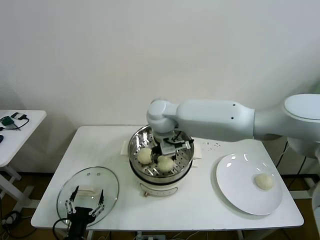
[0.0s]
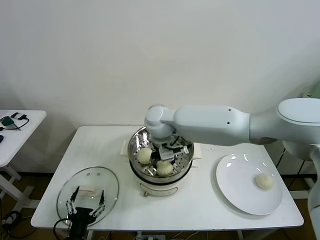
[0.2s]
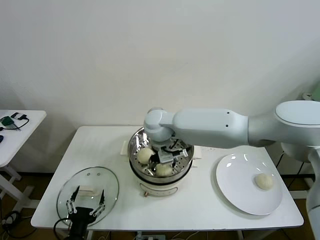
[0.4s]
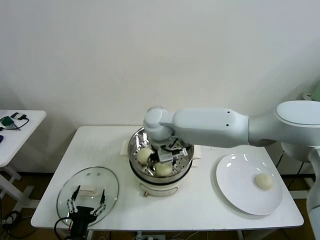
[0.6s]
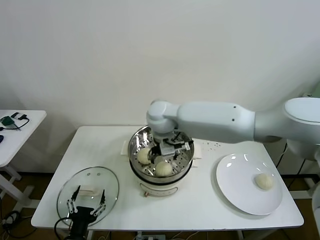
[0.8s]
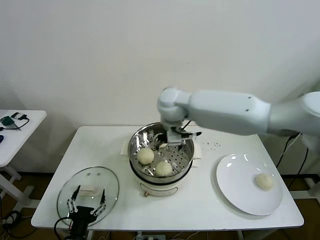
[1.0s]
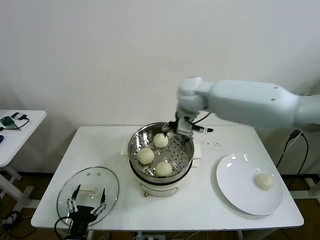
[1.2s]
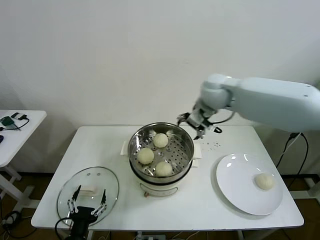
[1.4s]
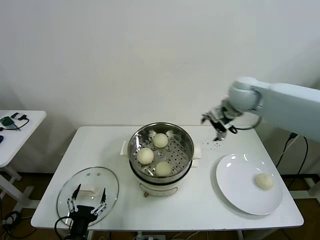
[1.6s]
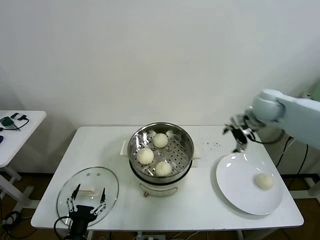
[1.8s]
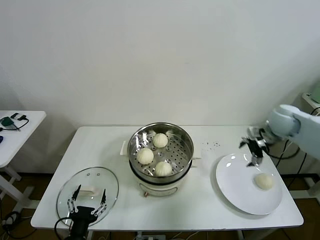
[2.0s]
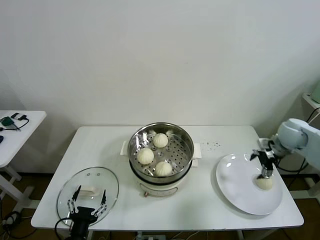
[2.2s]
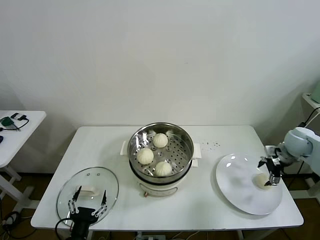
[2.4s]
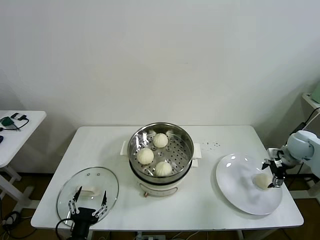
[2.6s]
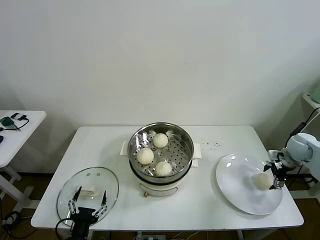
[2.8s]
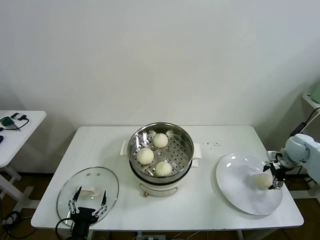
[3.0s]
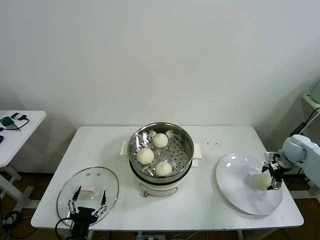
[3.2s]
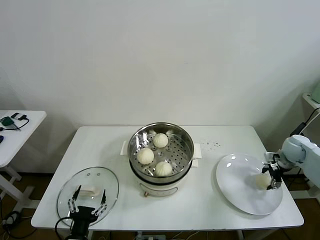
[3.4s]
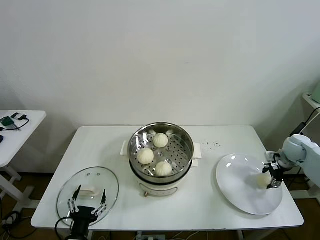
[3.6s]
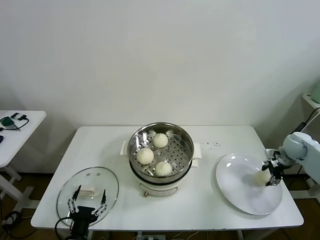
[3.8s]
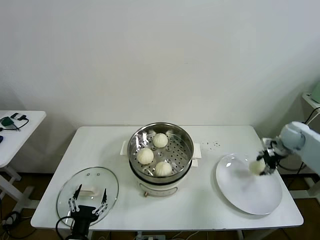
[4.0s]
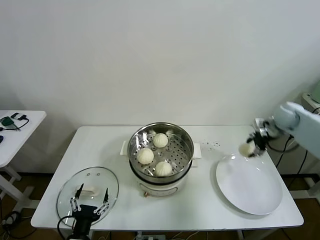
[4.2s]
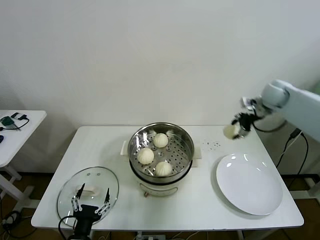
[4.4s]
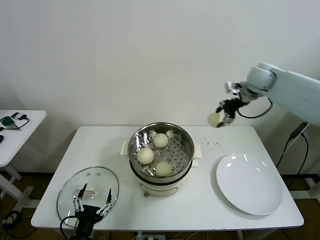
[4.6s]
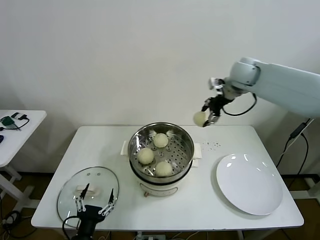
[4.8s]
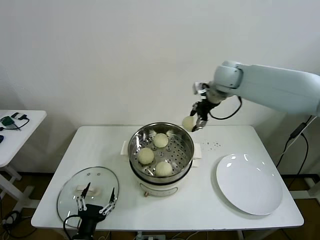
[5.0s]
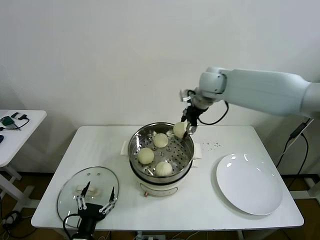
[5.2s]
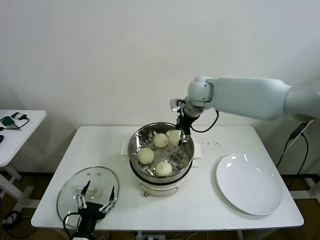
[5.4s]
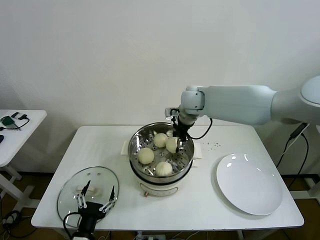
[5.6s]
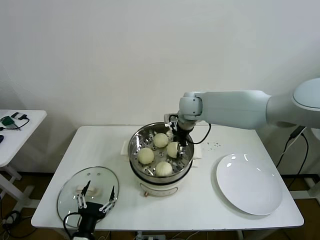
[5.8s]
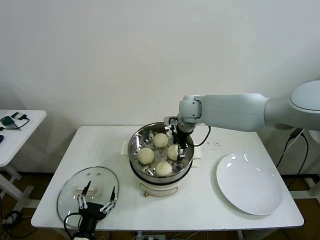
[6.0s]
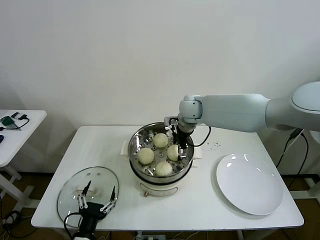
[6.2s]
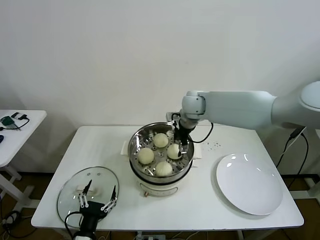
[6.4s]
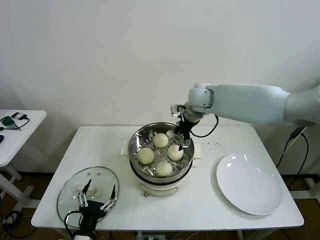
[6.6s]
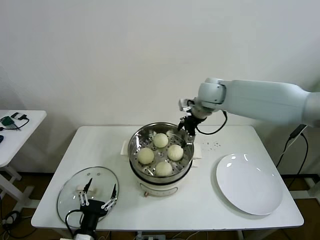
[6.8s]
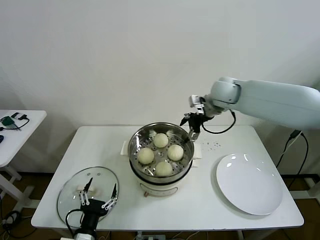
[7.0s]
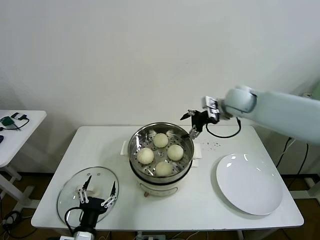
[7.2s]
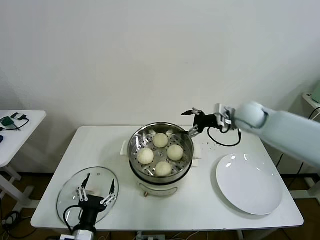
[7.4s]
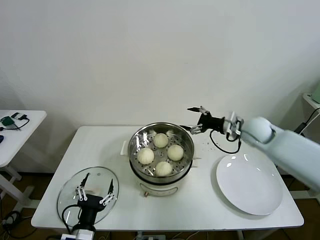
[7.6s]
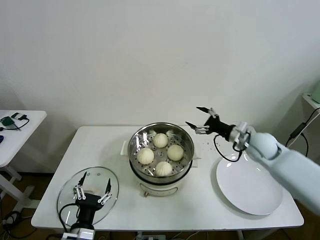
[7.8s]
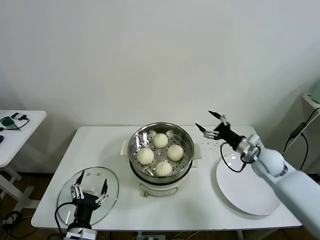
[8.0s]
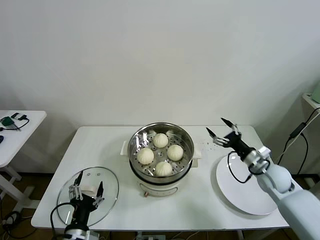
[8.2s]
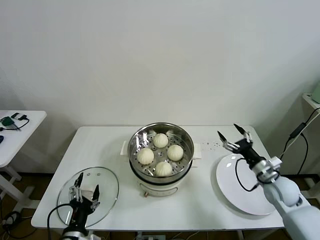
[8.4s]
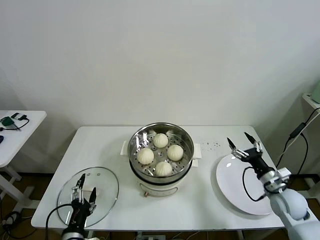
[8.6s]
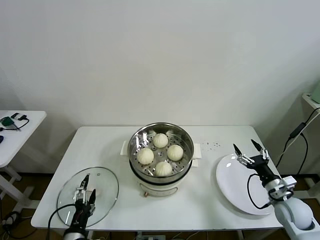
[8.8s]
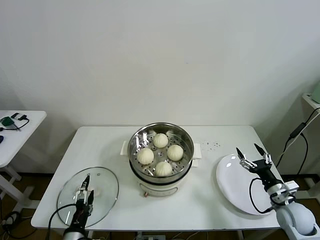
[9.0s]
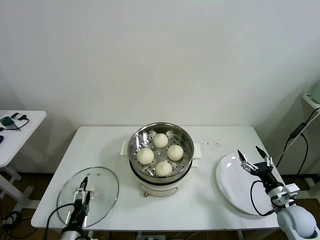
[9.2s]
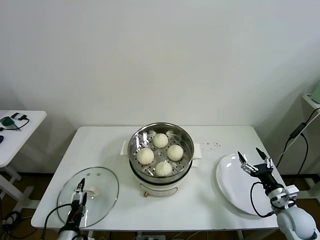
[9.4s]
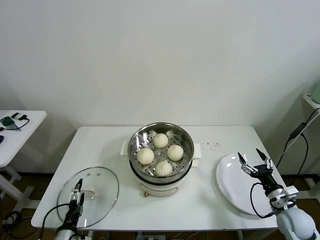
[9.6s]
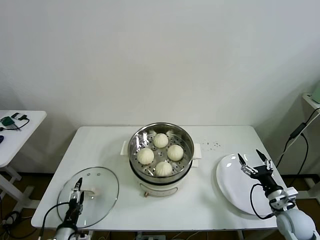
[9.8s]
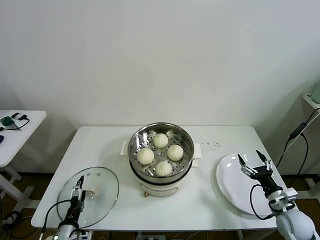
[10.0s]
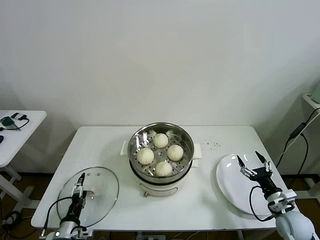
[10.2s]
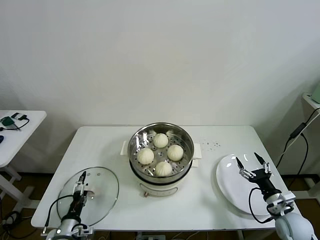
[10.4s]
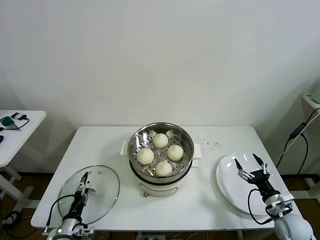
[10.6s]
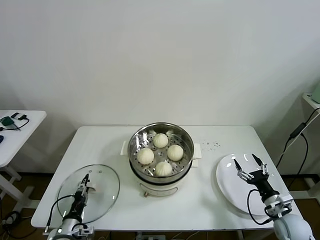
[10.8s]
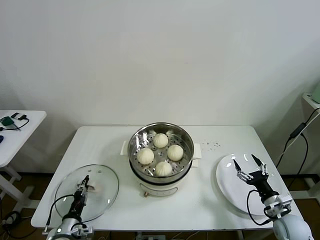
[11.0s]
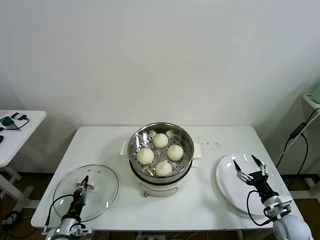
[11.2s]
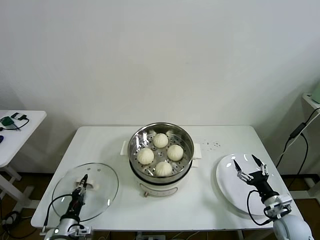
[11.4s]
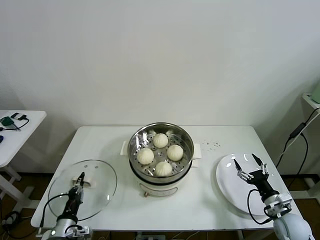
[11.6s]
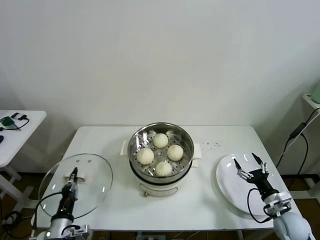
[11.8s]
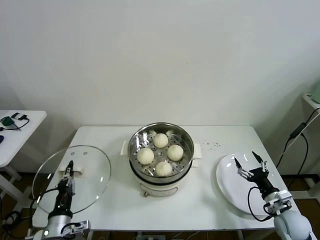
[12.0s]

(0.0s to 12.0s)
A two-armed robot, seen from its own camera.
Task of the whole recording: take steamed baozi put them in steamer then cover it.
Step, 0.6s - 3.6s: Grasp the baozi in the plate with right gripper.
Step, 3.8s - 6.2s: Place the baozi on the steamer with right gripper.
Step, 6.6s - 11.2s: Grasp the pot lid with left gripper.
0.0s - 1.6s: The right gripper goes roughly 30 cm to the right, and opens.
1.6s - 3.0s: The right gripper is displaced to the right and downward by some 30 cm.
3.0s - 4.4s: The right gripper moves upward, to the left and forward, roughly 25 cm, and closes up.
4.4s - 6.0s: The right gripper travels to the left by about 25 cm, and opens up.
6.0s - 7.6s: The right gripper travels to the right by some 20 cm.
7.6s - 9.0s: The right gripper heads backward, downward and to the right, covering some 30 cm.
9.0s - 10.4s: The left gripper moves downward, to the left and forward, about 10 cm.
10.4s - 12.0s: The left gripper goes roughly 10 cm upward, and closes its fingers.

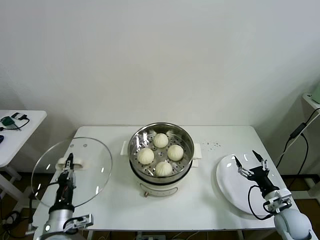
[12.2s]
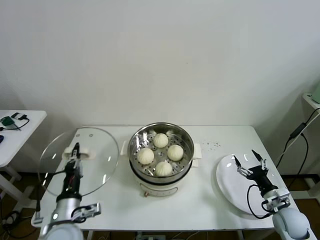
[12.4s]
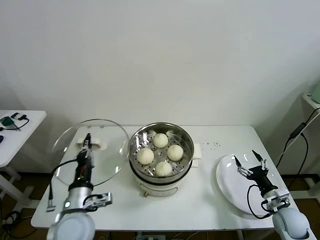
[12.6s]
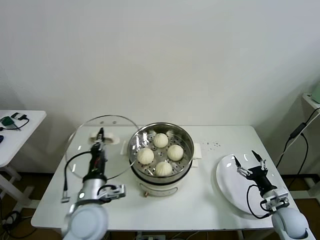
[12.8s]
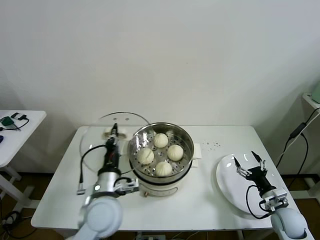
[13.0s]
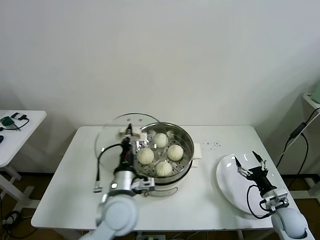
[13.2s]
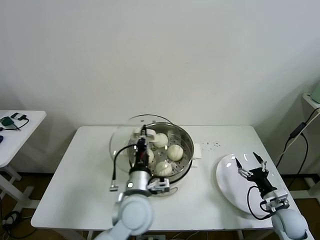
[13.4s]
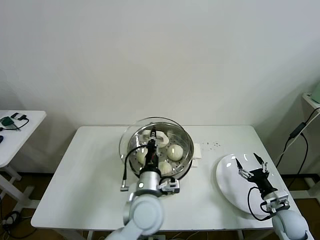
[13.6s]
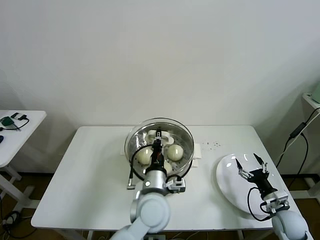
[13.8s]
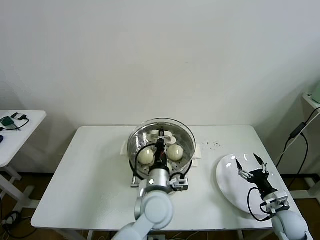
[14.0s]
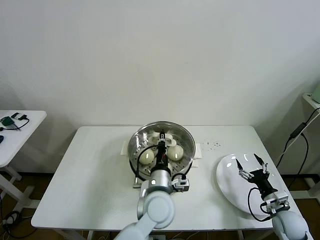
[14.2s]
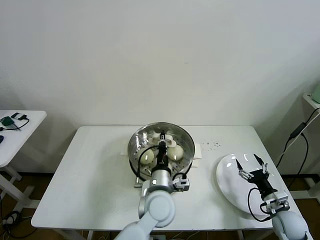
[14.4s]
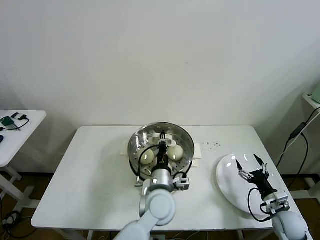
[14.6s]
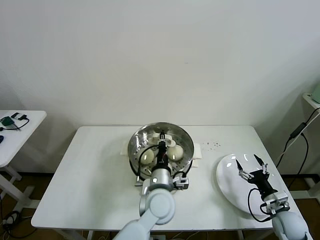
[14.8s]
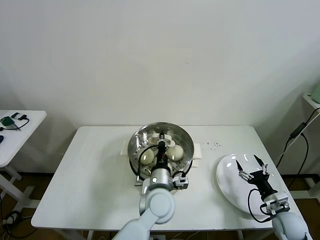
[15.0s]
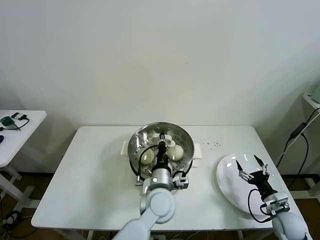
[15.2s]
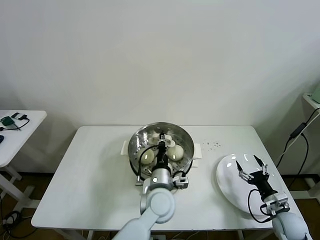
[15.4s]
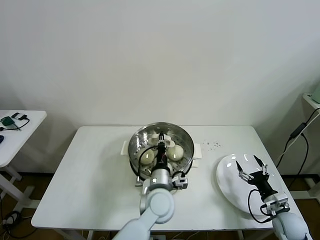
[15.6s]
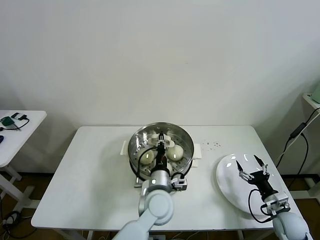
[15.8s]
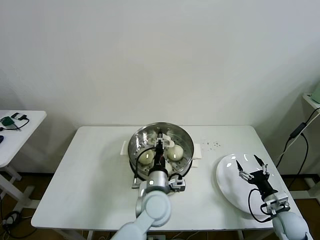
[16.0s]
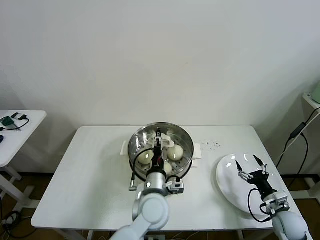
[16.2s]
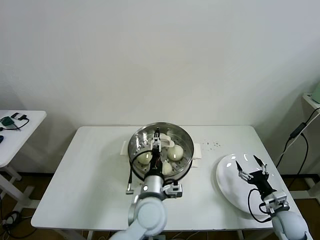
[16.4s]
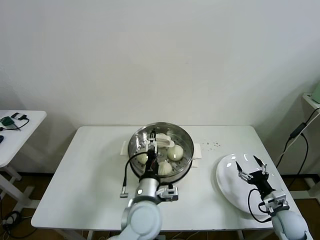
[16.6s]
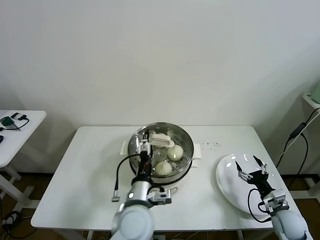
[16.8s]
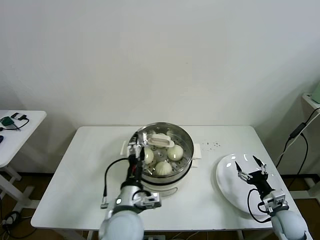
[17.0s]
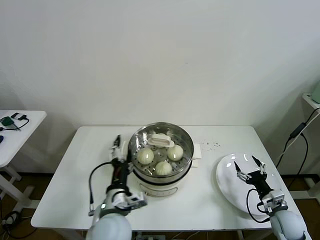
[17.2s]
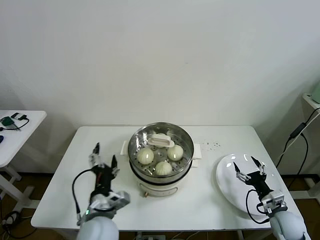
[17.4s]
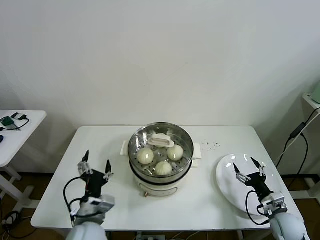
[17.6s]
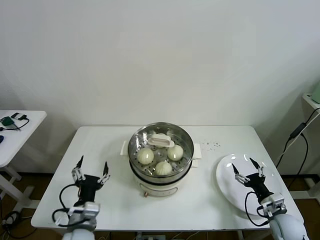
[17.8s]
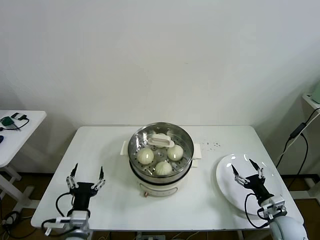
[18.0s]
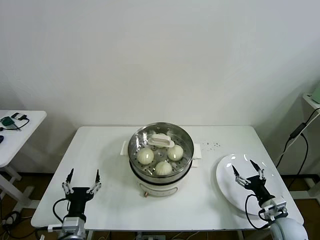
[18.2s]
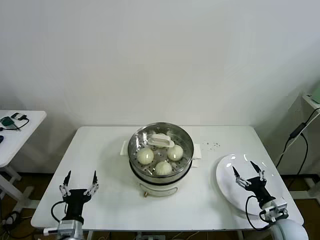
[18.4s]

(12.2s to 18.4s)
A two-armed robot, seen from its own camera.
Task of the whole recording: take steamed baozi put them in steamer then cover it.
Step, 12.2s - 16.2s: Place the pot lid on the steamer with left gripper.
12.2s - 13.8s: The left gripper heads to the right, covering approximately 25 cm.
13.8s - 15.4s: The left gripper shifts by roughly 5 cm.
15.4s - 16.8s: The left gripper shifts some 10 cm backward and to the left, and opens.
16.8s - 18.4s: The left gripper heads to the left and downward, covering about 20 cm.

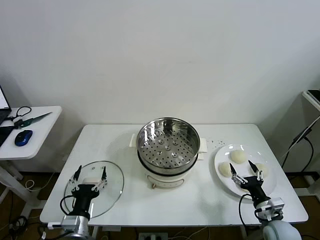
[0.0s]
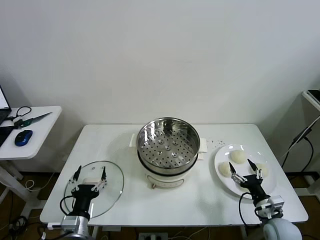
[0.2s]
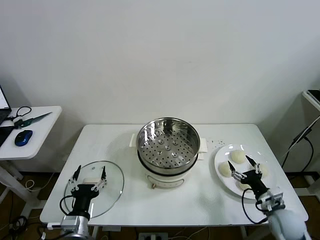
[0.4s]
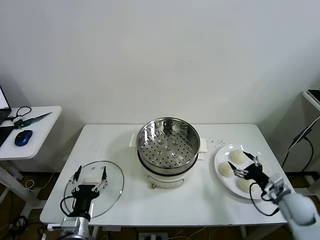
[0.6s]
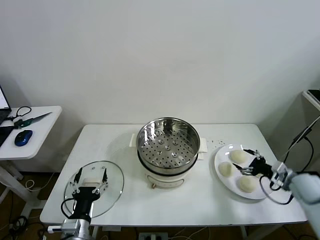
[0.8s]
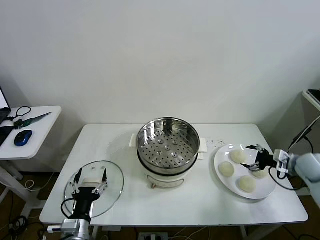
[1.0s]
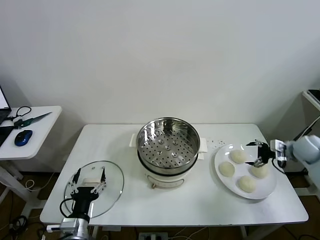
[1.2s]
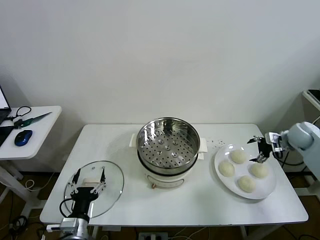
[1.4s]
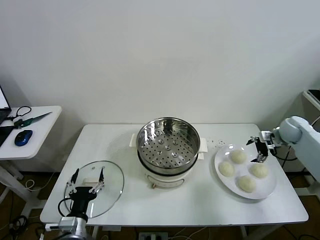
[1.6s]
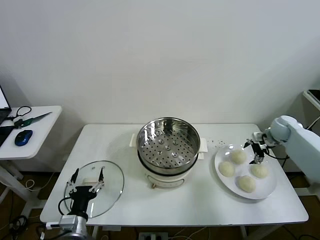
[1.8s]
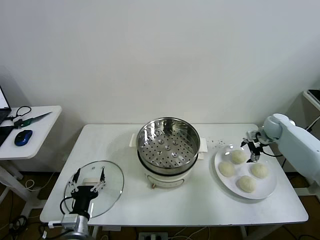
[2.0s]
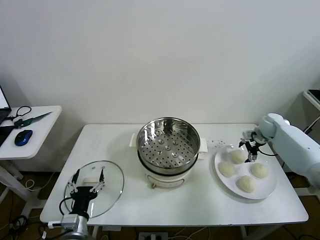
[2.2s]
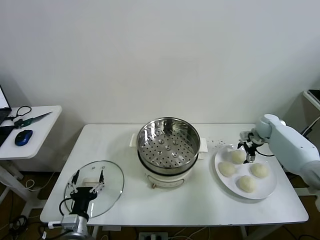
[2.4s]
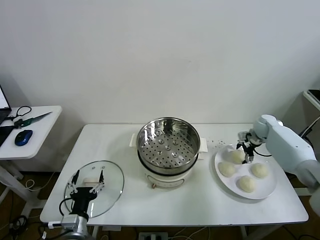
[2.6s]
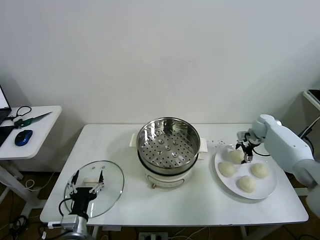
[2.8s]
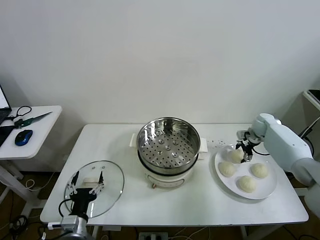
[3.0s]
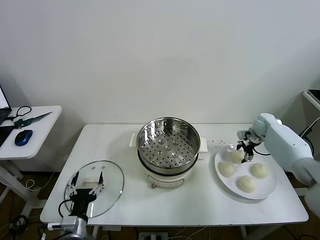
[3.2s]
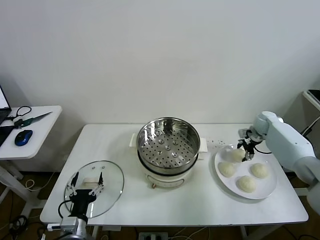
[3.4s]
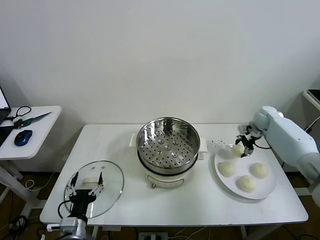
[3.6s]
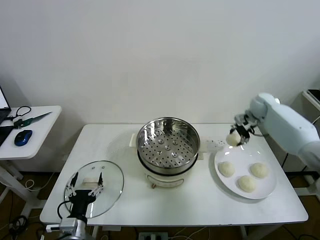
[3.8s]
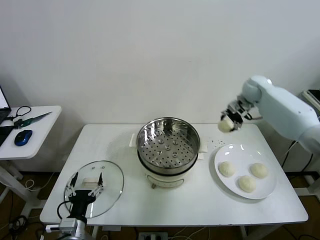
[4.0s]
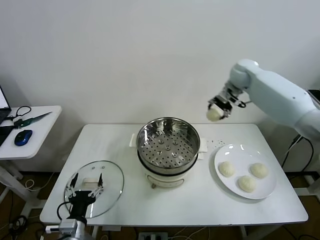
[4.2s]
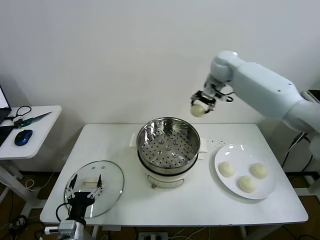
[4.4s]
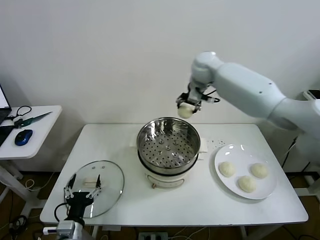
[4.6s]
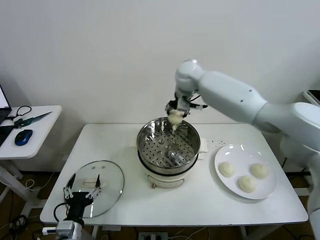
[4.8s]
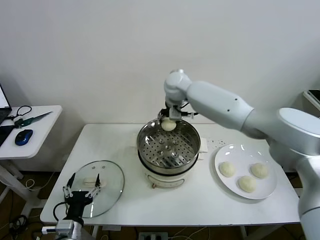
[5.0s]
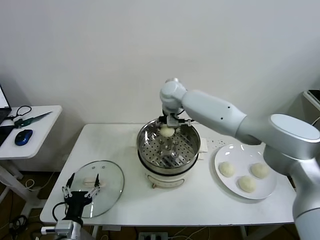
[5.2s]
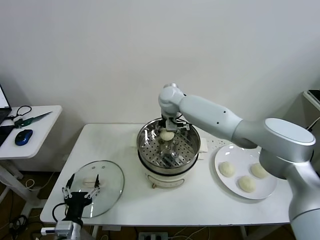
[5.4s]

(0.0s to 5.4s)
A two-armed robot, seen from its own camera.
Task of the whole recording: take steamed baozi put them in steamer then cover it.
Step, 0.0s - 3.0s: Grasp the baozi in the plate with right gripper.
1.4s - 2.8s: The right gripper heads forward, to the left and downward, covering approximately 10 cm.
2.8s - 4.0s: The right gripper moves upward and to the left, some 25 cm, and closes its fingers.
4.0s - 5.4s: The right gripper is displaced to the left by approximately 30 cm.
